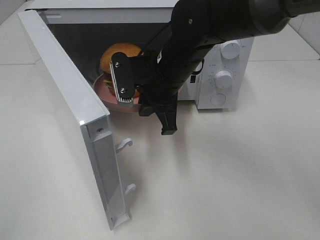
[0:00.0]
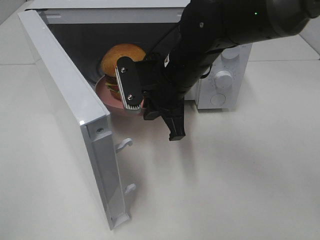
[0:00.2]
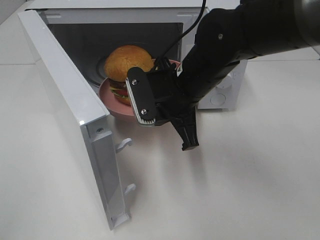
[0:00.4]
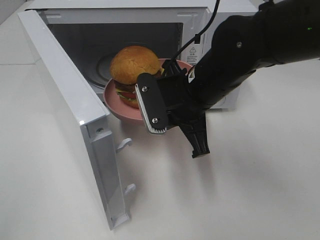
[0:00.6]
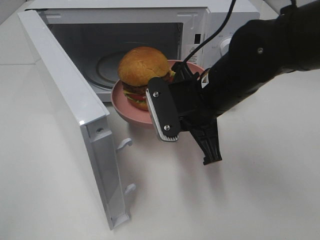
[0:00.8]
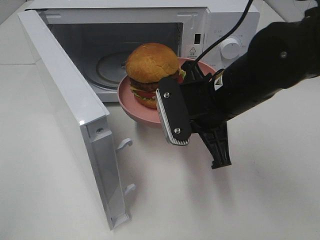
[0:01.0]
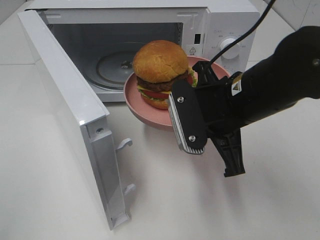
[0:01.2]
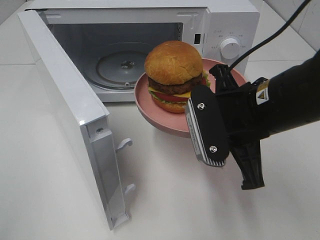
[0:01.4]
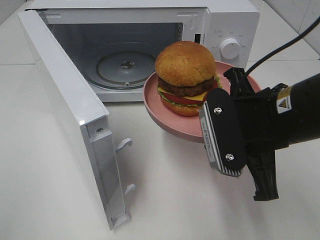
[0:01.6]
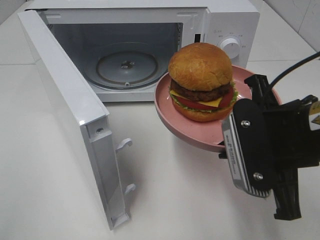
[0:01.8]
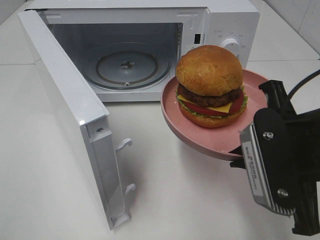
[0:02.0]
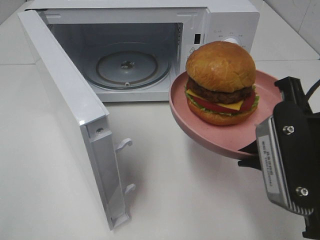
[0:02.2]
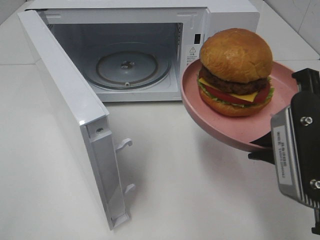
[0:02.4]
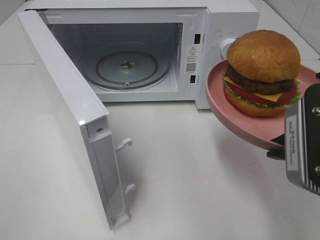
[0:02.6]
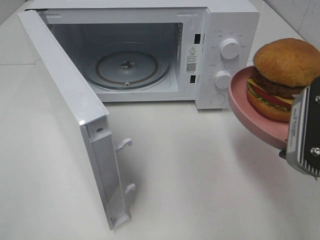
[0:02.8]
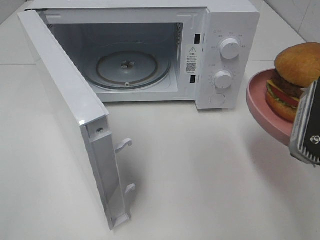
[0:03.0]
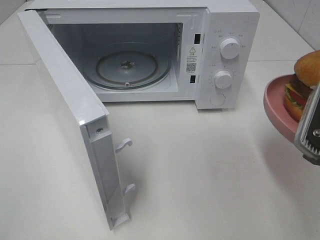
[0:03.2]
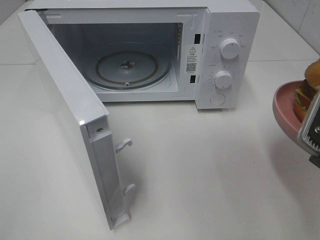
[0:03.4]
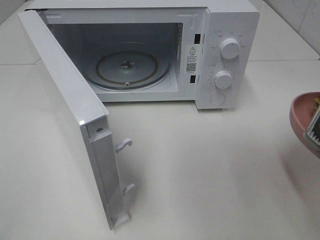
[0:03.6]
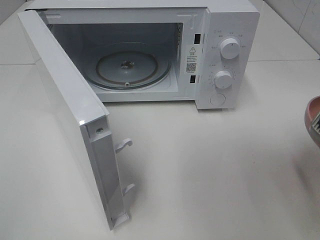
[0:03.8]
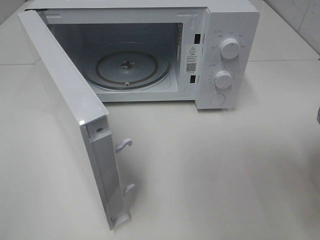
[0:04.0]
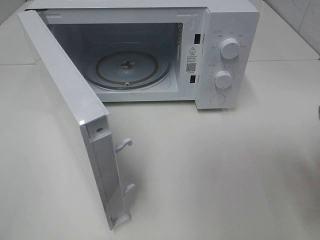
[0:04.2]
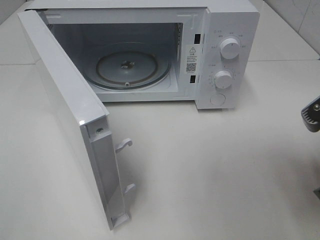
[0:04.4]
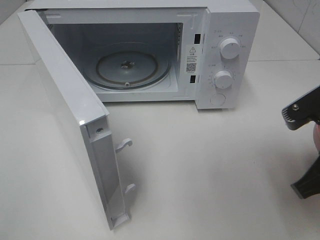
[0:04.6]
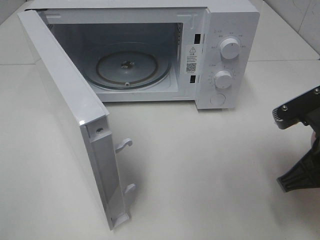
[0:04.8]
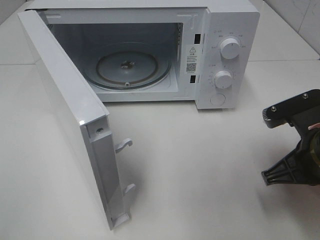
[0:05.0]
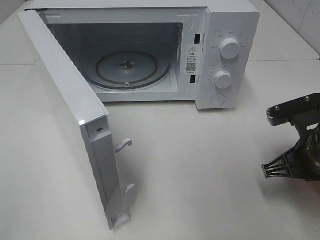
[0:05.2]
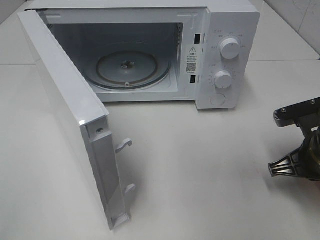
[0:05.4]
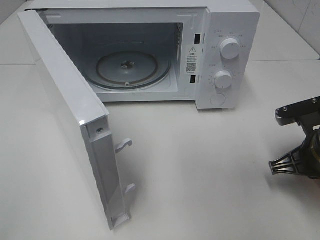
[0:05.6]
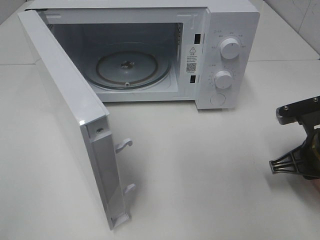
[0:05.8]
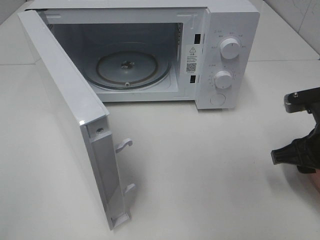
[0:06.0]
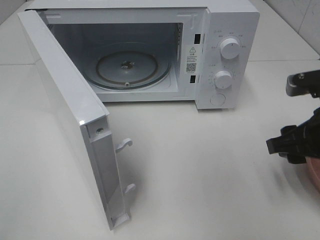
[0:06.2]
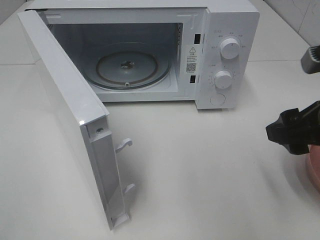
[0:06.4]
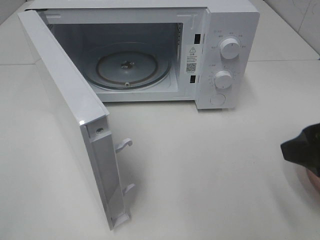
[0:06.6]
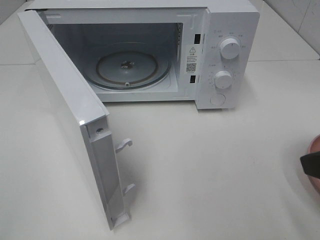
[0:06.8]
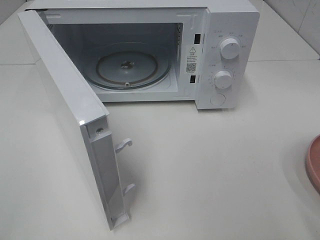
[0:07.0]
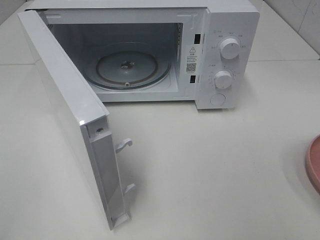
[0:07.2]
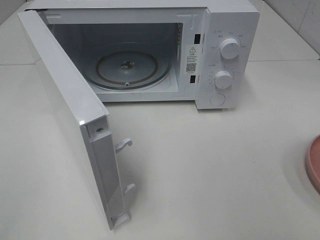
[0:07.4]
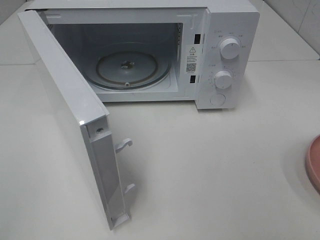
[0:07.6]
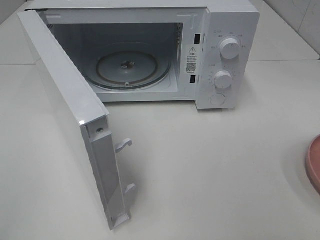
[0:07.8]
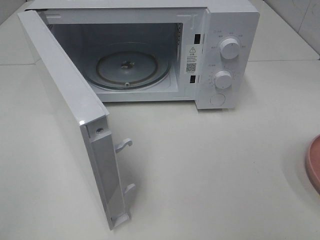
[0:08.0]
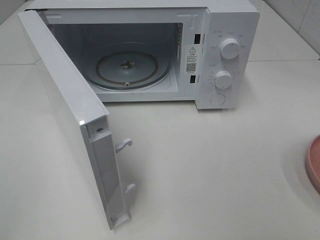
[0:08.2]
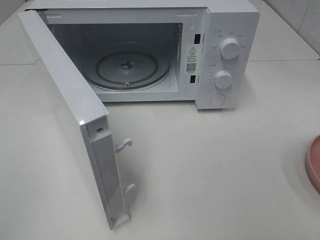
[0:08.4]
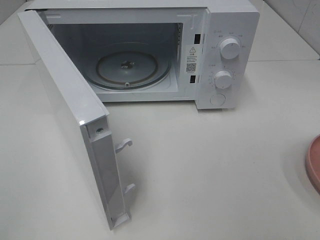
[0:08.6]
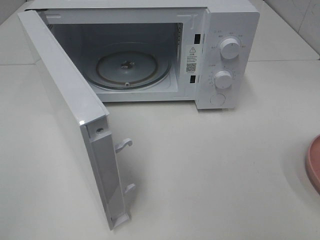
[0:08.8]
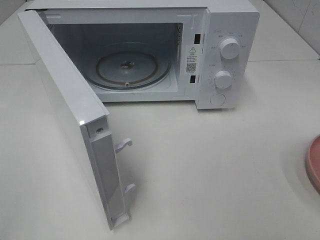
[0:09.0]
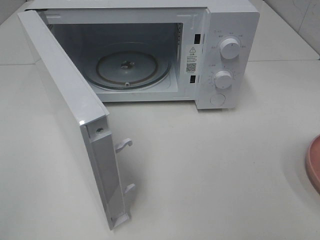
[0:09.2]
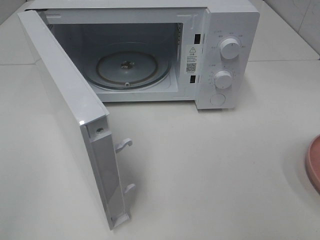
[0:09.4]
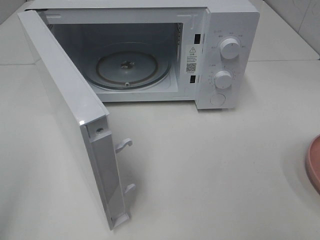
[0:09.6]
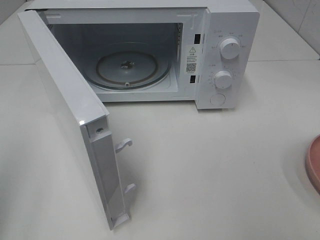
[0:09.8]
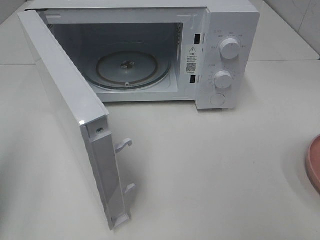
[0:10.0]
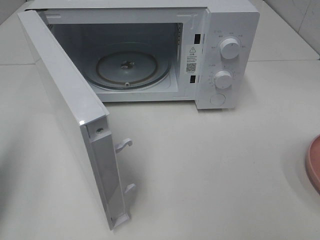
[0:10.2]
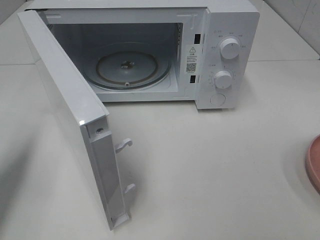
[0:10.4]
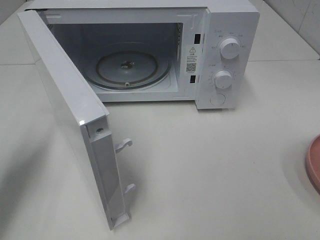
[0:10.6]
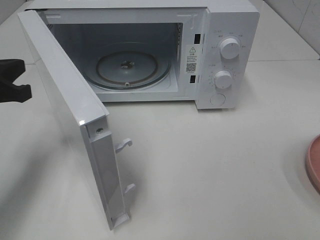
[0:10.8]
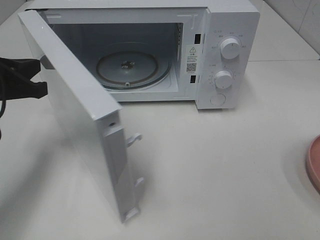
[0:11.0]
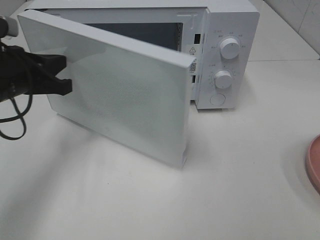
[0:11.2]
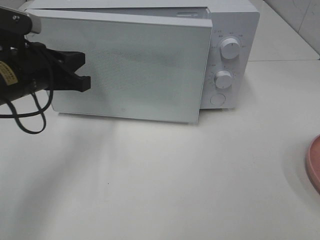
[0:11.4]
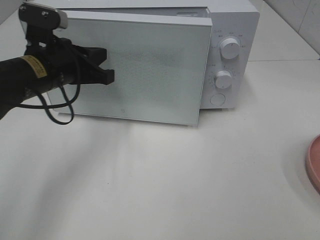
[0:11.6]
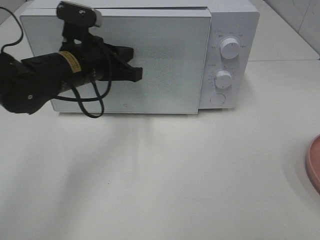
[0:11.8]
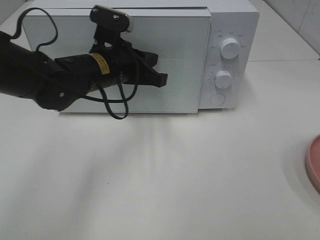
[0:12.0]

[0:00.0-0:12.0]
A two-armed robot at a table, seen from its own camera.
Task of the whole recording: Heat the burger.
Step, 0:00.0 to 0:05.8: Right hand: place the plate on the table.
0:00.0 to 0:01.6: The right gripper heads backward and to the right, covering roughly 20 cm.
0:01.6 to 0:03.0: The right gripper is displaced to the right and backward by some 10 cm.
0:04.4 to 0:06.0: The right gripper heads downward and forward, covering approximately 10 cm, and opens up.
0:06.0 to 0:07.6: The right gripper is displaced backward and upward by about 25 cm.
0:07.6 to 0:09.0: Neither gripper changes place.
0:09.0 to 0:10.4: The left gripper moves forward, some 20 cm, and closes.
0:10.4 to 0:12.0: The left gripper travels to the right and forward by roughly 30 cm.

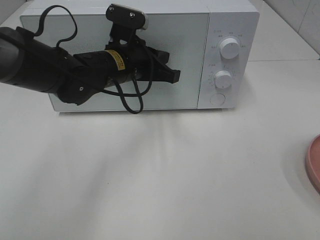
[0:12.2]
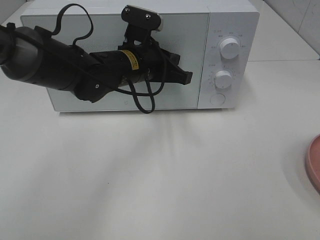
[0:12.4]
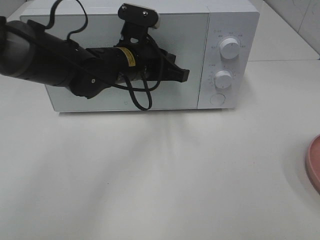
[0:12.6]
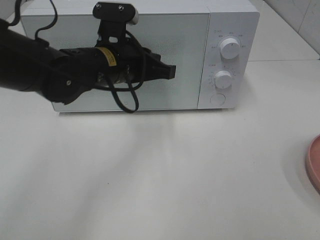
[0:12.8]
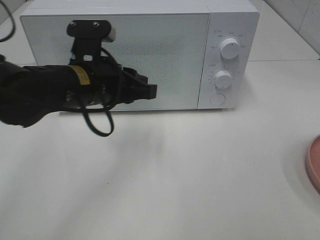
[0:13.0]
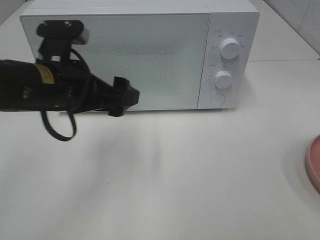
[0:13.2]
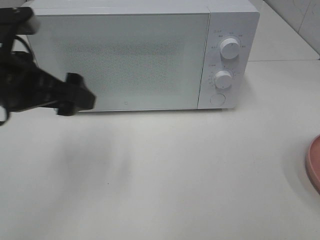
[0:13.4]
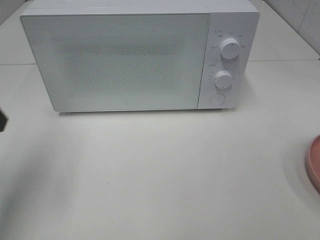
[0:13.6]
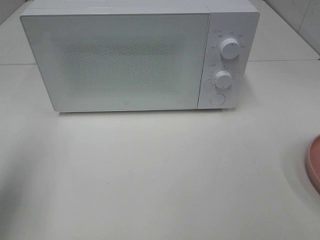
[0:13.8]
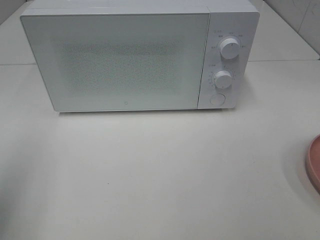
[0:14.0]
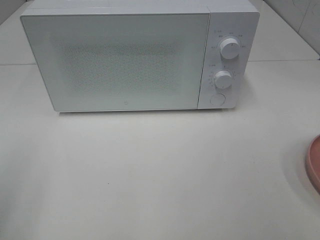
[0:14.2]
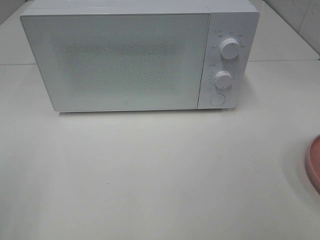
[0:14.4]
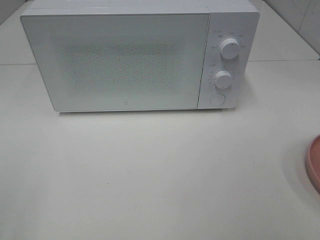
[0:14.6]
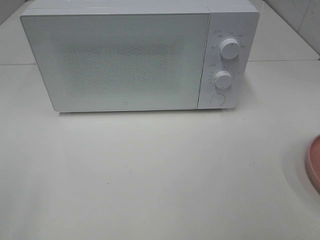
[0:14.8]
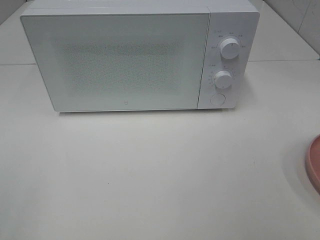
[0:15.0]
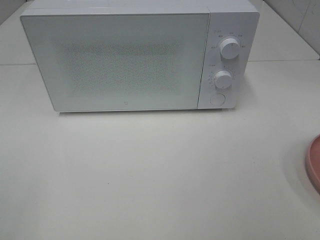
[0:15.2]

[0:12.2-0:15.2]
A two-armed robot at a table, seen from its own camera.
Task of the whole recording: Heat the burger.
0:12.2 to 0:13.8: The left gripper heads to the left, backward and upward, covering approximately 35 cm, and opens.
0:13.8 to 0:15.2: The left gripper is displaced backward by roughly 15 cm.

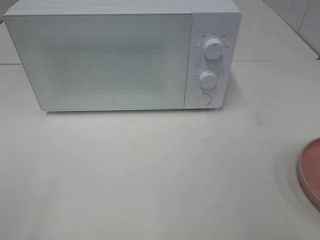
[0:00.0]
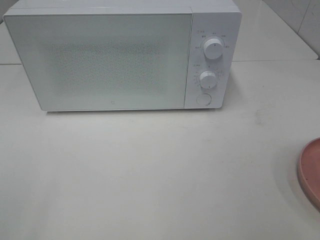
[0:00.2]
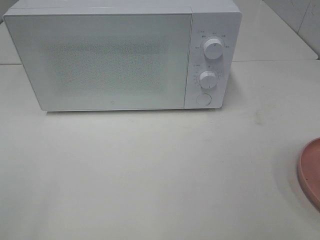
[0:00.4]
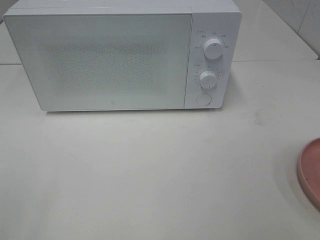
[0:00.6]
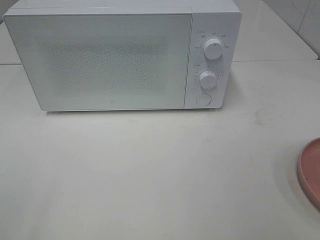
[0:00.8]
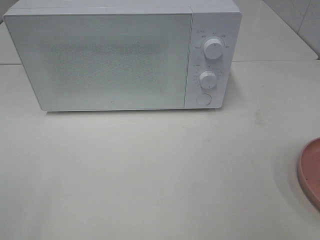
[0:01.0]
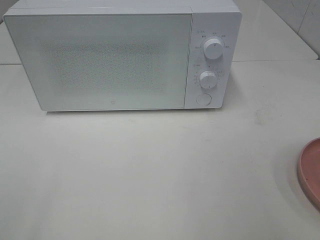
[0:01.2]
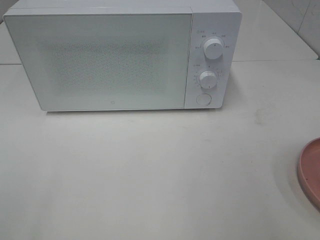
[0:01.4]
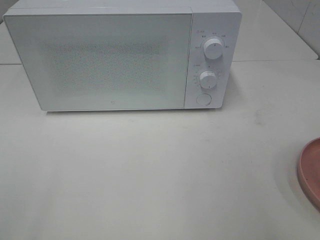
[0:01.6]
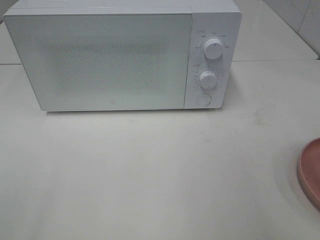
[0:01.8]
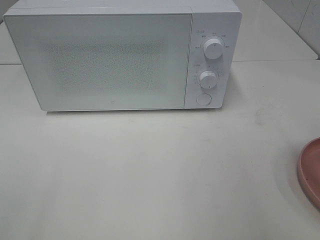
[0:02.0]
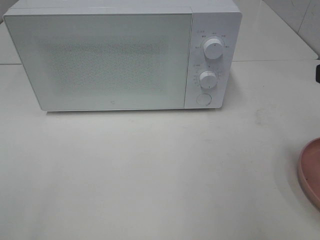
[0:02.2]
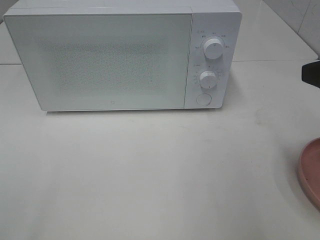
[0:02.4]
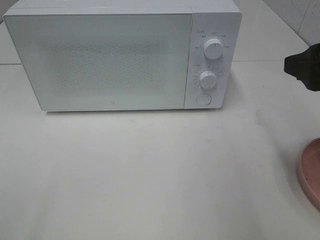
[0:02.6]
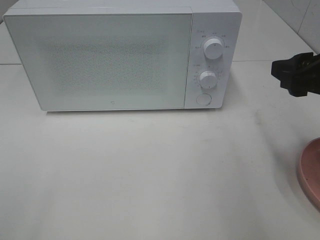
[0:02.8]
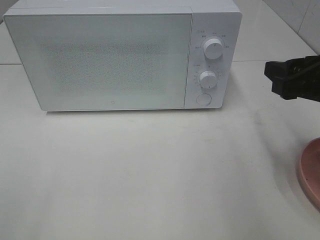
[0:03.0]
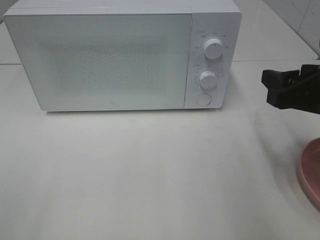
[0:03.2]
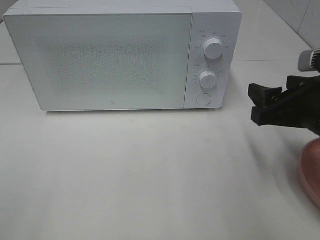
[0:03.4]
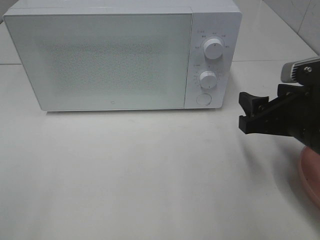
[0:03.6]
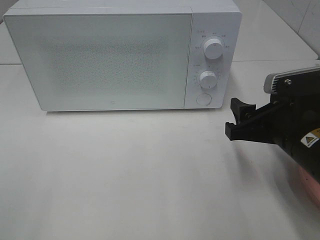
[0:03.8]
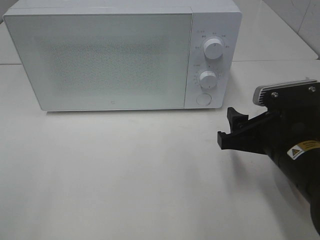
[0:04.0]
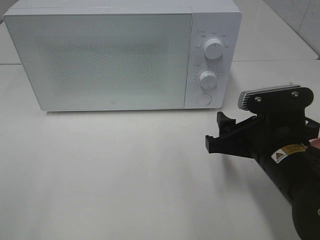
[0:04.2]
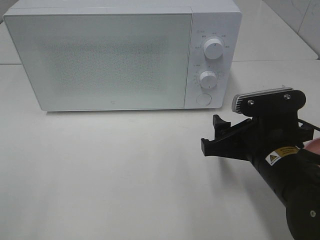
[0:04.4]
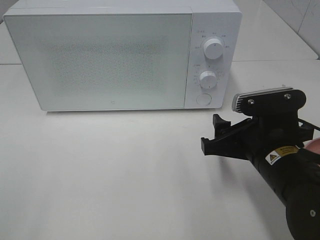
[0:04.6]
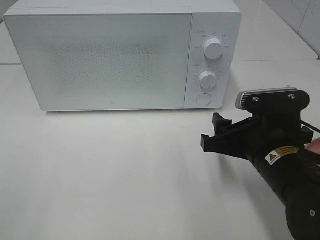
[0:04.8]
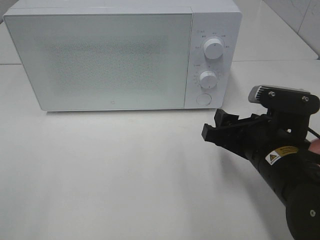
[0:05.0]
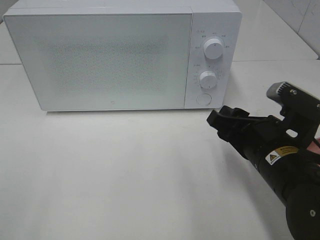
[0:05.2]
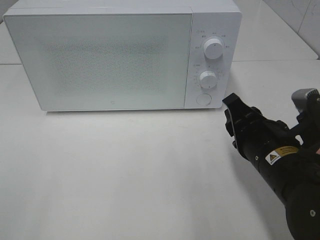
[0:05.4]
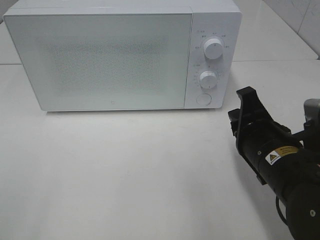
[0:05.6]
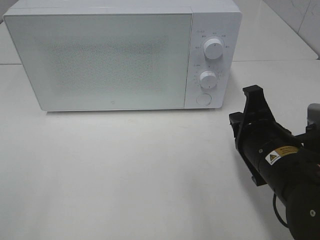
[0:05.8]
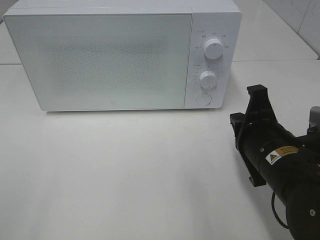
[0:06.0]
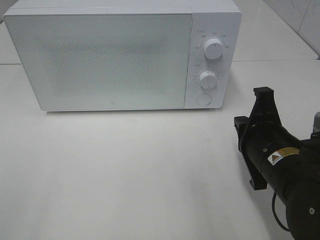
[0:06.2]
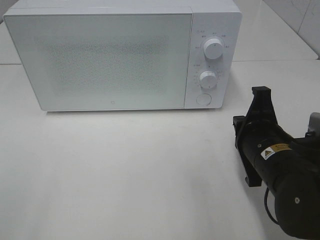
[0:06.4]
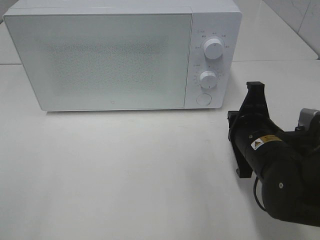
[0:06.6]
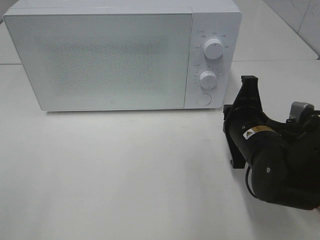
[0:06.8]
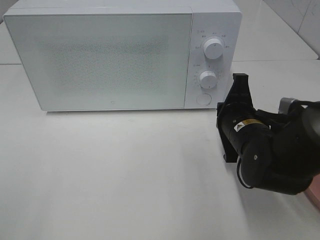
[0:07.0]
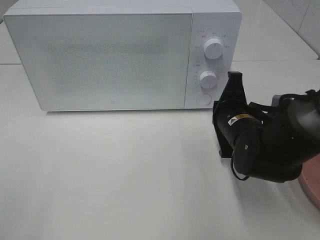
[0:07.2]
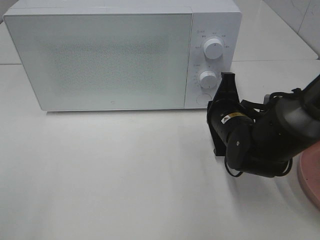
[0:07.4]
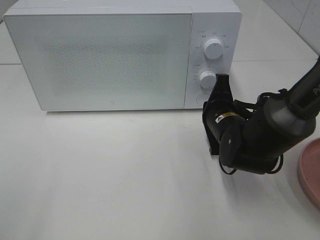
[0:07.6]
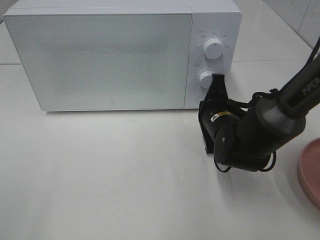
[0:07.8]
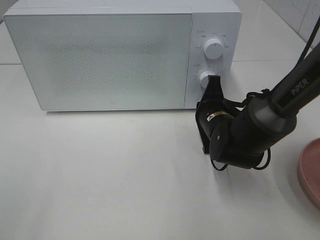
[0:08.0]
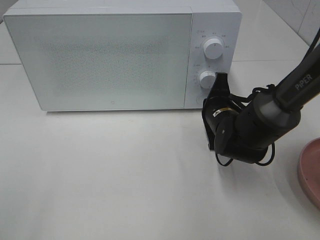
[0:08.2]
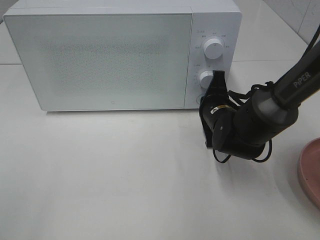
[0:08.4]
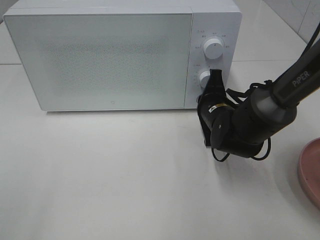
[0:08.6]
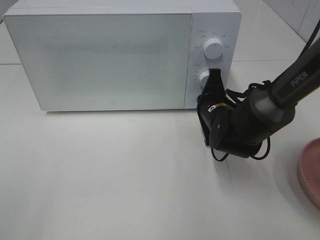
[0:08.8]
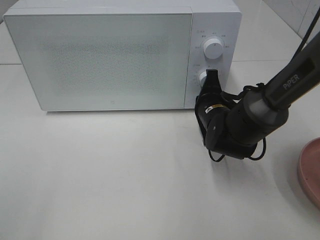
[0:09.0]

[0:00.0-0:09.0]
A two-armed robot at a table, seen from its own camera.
Task of the whole recording: Heat the burger.
0:01.6 to 0:03.0: The right gripper heads forward and downward, covering roughly 15 cm.
0:03.0 to 0:04.4: The right gripper goes some 15 cm downward and to the left.
0:04.4 to 0:06.0: The right gripper closes up.
0:06.0 to 0:07.6: The right gripper is displaced forward by approximately 10 cm.
0:07.6 to 0:09.0: The grippers move only a little.
